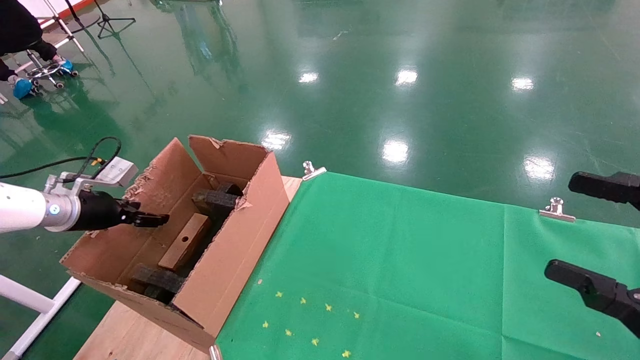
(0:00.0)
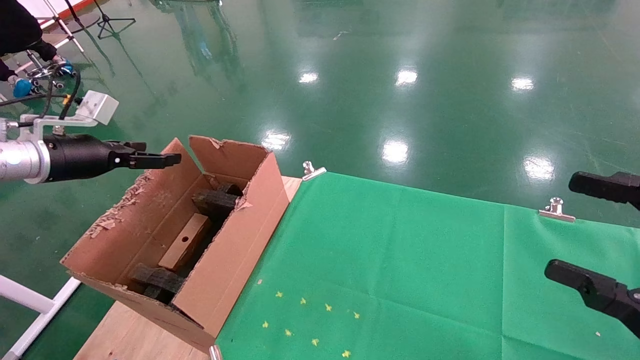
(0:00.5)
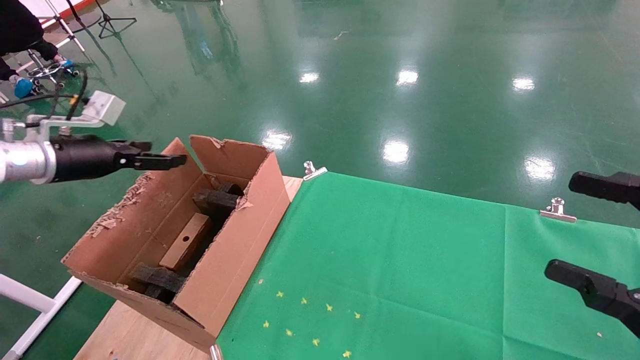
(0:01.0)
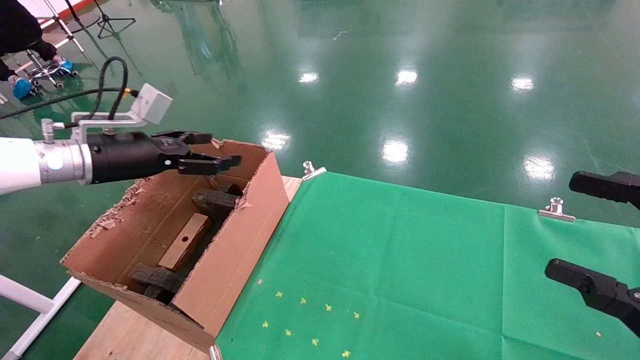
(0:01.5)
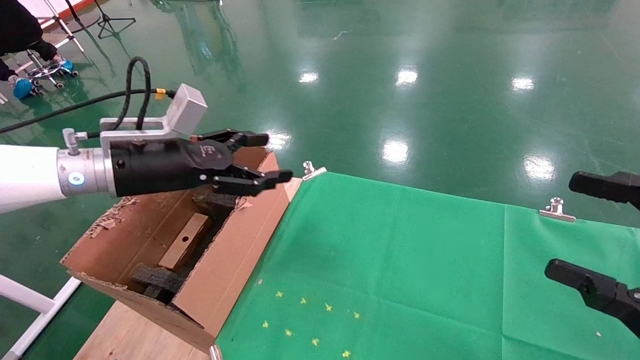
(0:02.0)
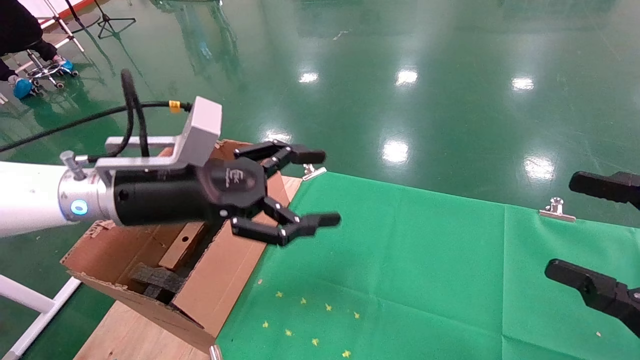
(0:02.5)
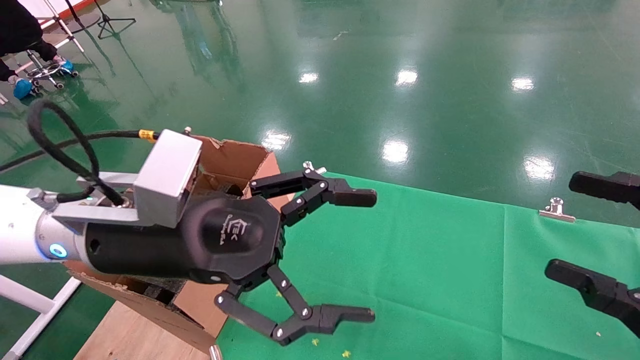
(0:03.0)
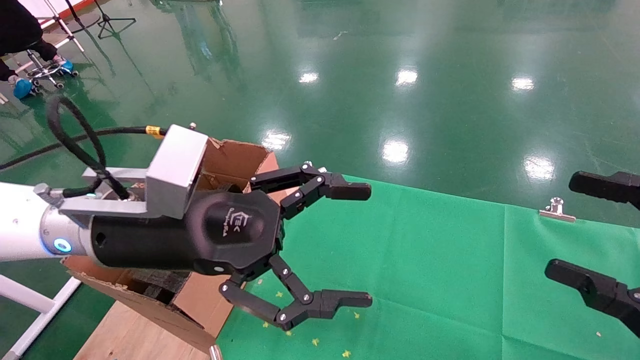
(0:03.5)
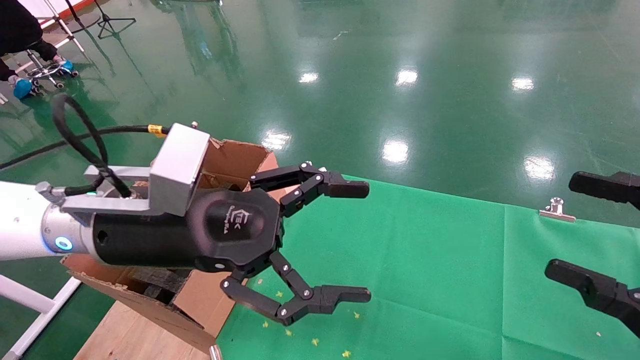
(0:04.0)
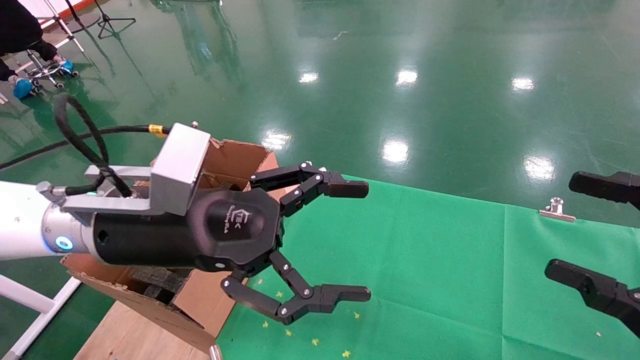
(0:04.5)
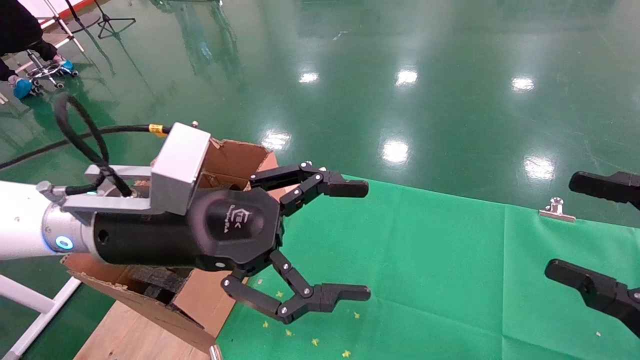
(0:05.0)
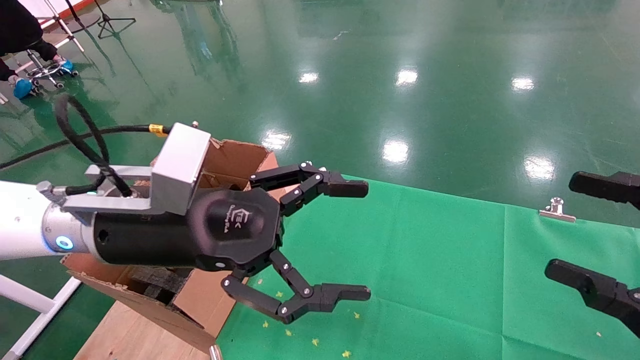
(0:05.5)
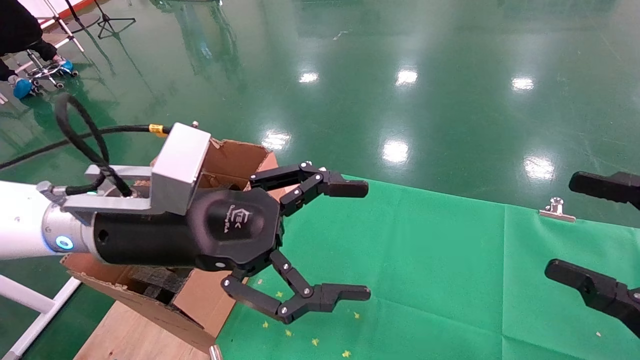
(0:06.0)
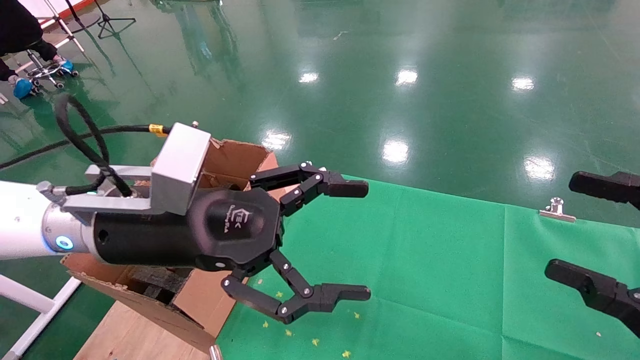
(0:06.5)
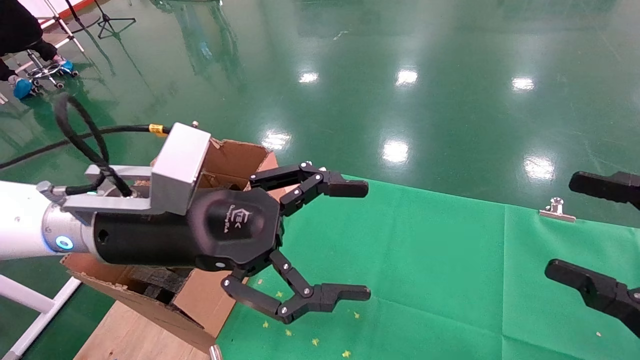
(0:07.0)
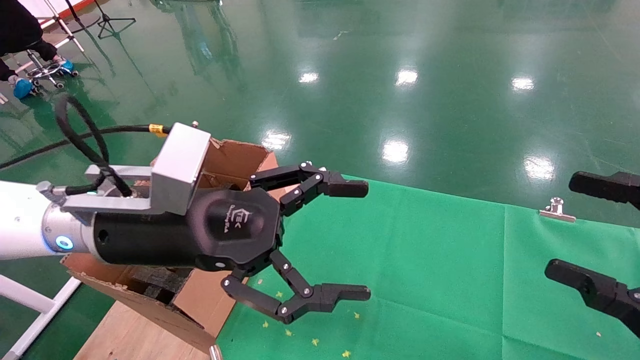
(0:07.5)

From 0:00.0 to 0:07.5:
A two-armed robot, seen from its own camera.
Task of the whole recording: using a robotic arm to pick up a cardboard box and palace it the carton.
From 0:00.0 to 0:02.0: The left gripper heads to the right and upward, covering some 20 cm, and opens its fingers.
From 0:02.0 to 0:04.0: The left gripper heads to the right and backward, covering about 15 cm.
From 0:04.0 to 0:07.5: Both grippers stay about where they are.
